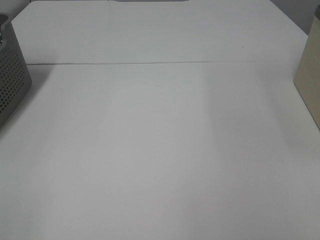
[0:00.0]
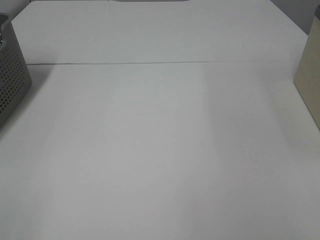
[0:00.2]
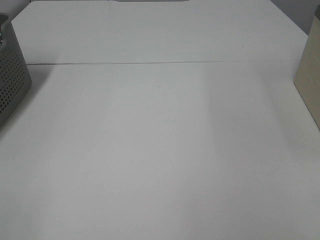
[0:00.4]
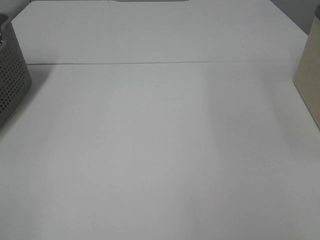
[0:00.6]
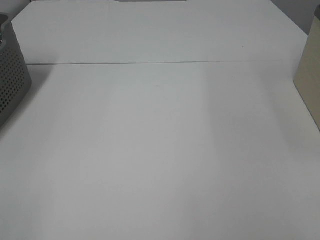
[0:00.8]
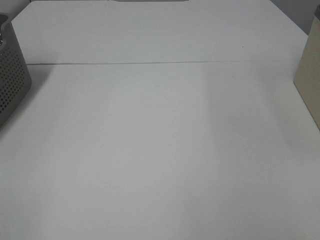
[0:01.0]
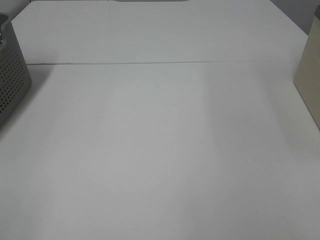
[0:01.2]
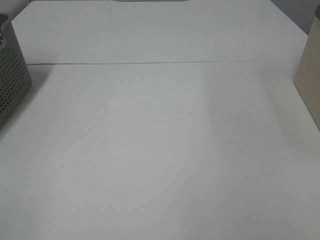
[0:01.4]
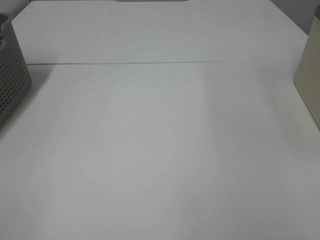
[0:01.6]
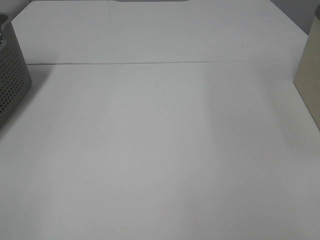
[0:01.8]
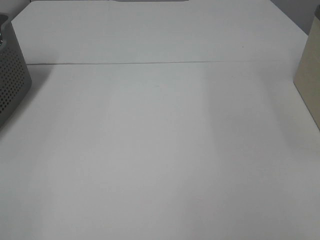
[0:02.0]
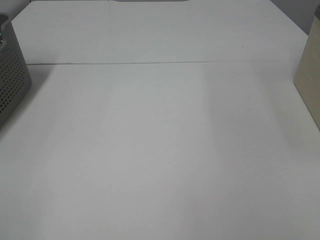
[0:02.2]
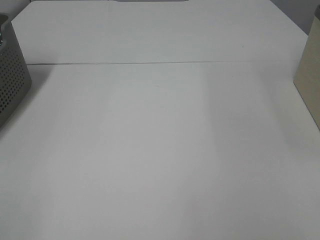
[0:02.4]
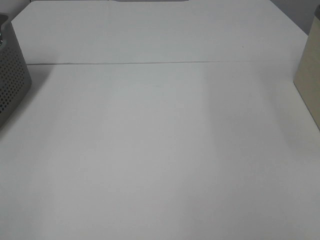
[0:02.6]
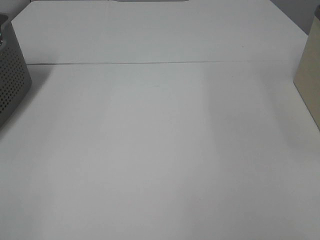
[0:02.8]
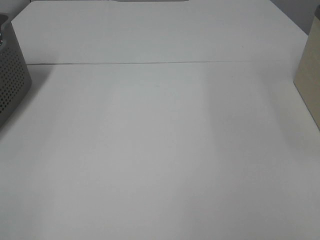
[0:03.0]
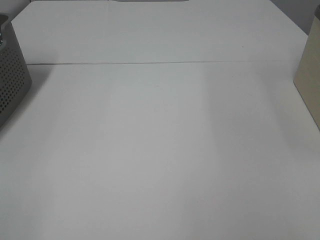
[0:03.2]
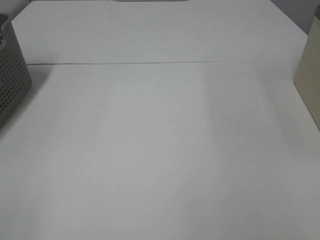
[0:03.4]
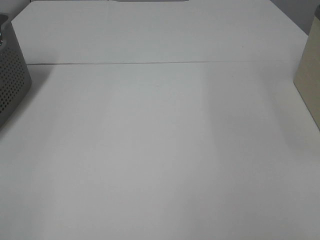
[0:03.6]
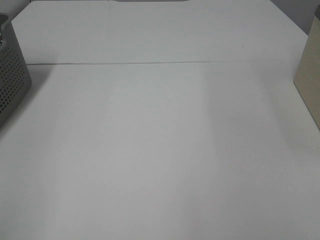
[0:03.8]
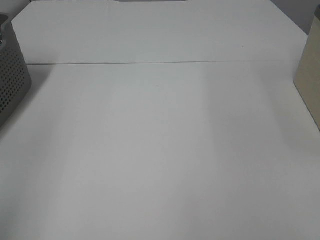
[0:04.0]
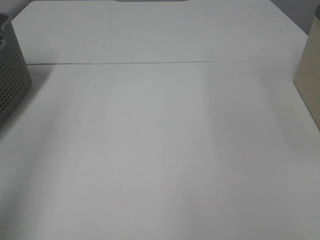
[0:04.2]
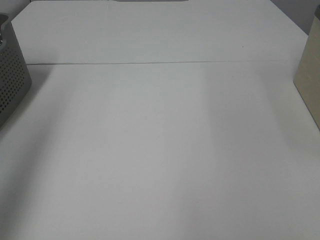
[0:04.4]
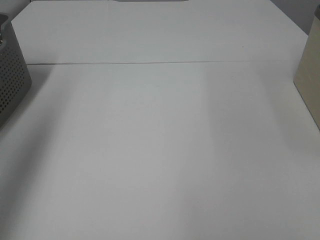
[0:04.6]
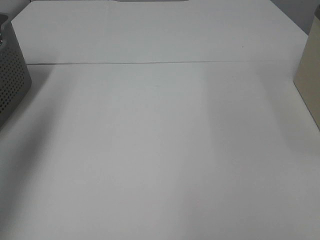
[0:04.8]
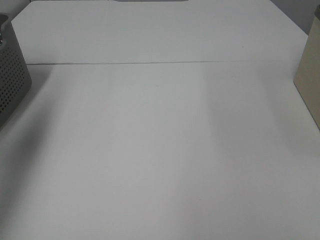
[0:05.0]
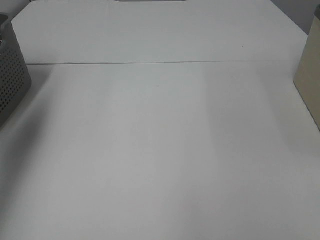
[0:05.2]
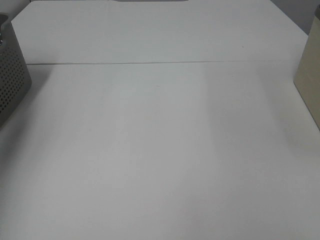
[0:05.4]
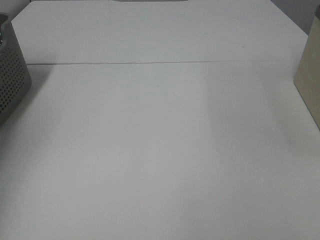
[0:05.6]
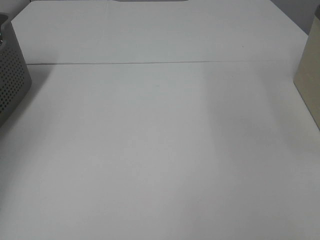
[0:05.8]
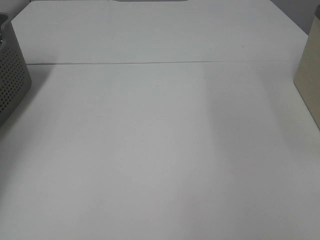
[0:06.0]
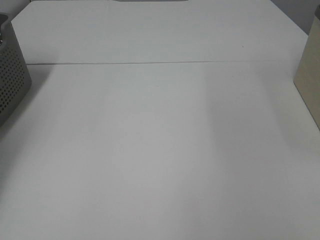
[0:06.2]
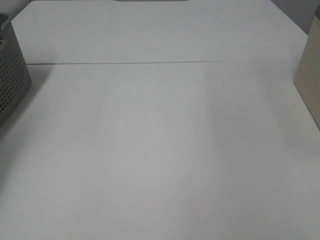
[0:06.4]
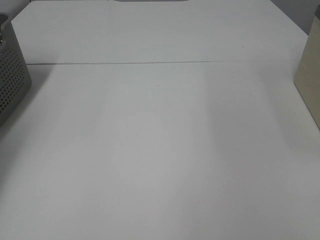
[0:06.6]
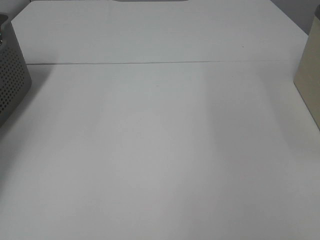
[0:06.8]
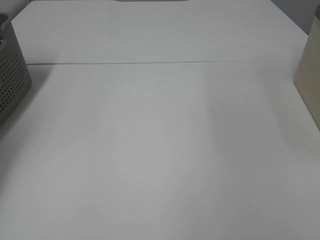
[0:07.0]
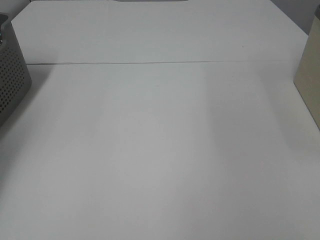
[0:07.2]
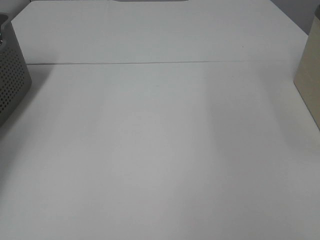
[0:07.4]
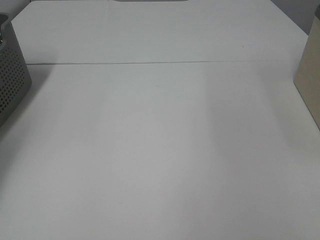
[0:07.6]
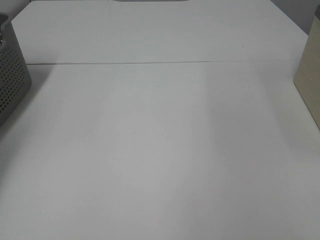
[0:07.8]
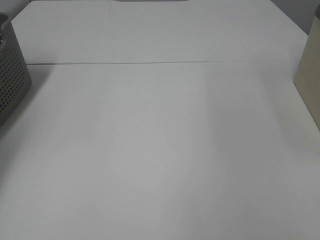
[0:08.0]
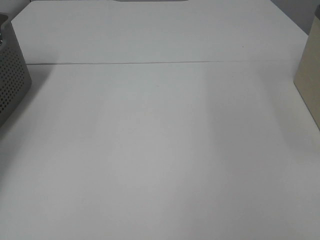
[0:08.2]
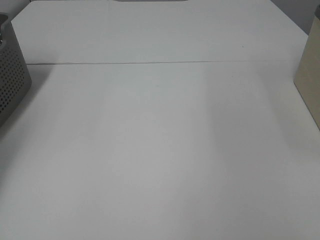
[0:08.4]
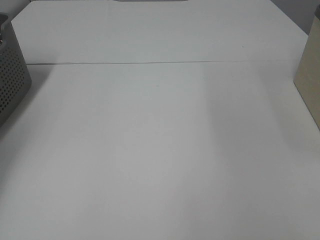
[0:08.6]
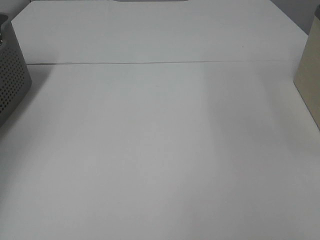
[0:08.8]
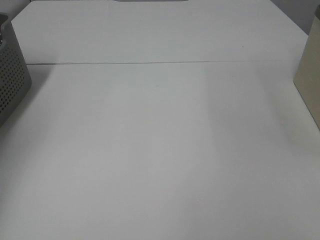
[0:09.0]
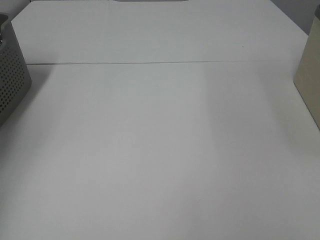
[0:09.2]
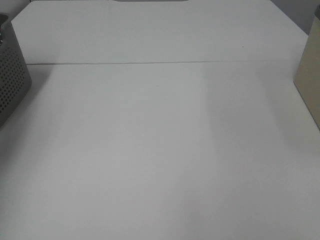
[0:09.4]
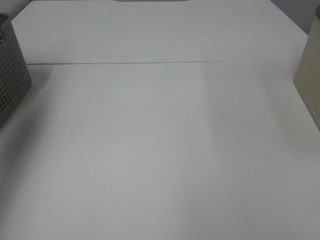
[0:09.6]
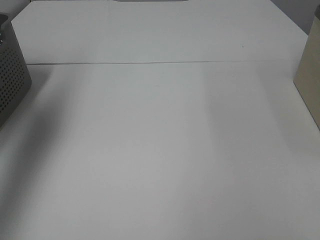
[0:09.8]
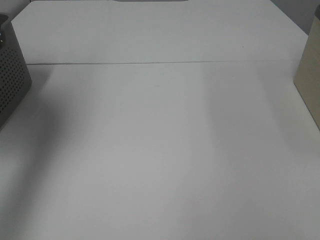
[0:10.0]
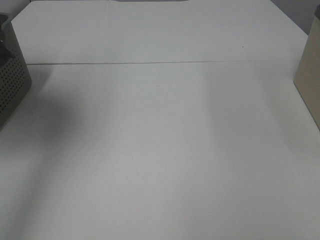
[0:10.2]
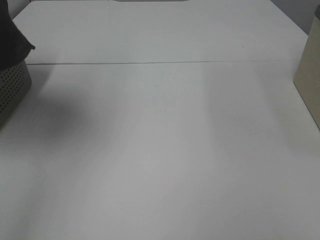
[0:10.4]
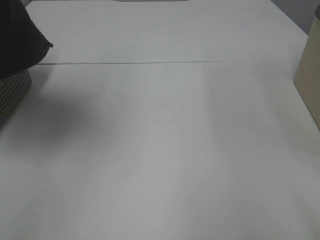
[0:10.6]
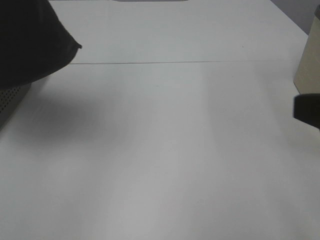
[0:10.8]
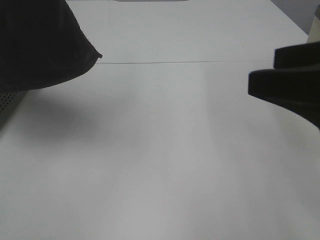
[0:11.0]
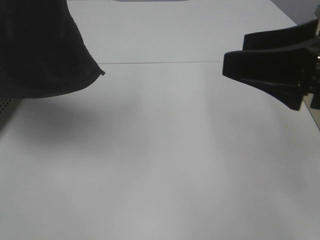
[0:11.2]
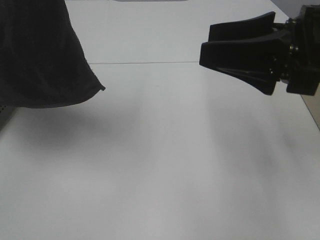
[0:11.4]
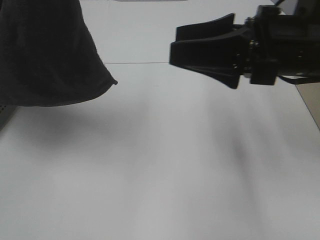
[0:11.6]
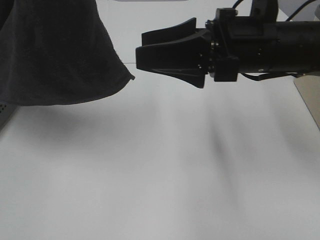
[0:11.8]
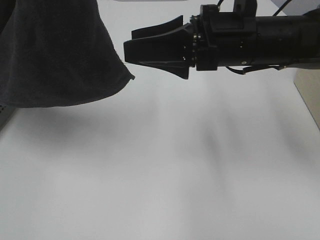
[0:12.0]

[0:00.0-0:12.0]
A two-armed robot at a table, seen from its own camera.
Task of the whole recording: Remove the towel and place it.
0:00.0 to 0:03.0: Both grippers stay about where they are.
0:03.0 to 0:04.4: The left gripper is displaced forward and upward by about 20 cm.
0:04.4 to 0:06.0: The left gripper heads forward, downward and to the left, covering about 30 cm.
0:09.0 to 0:10.4: The left gripper shifts roughly 30 cm to the right, upward and backward.
0:10.4 to 0:12.0: The left gripper is displaced to the right and backward by approximately 10 cm. The right gripper heads forward and to the left, covering roughly 30 cm.

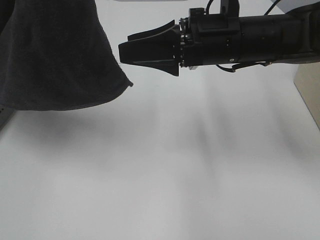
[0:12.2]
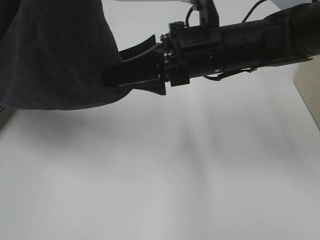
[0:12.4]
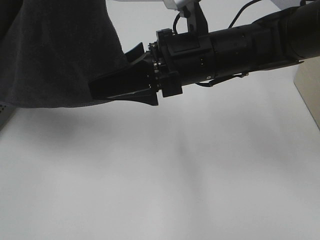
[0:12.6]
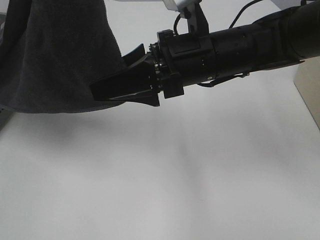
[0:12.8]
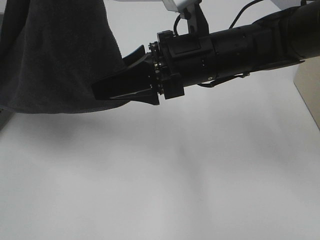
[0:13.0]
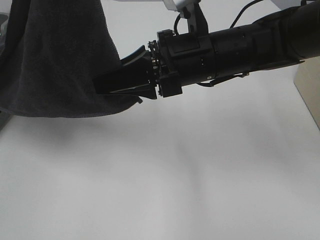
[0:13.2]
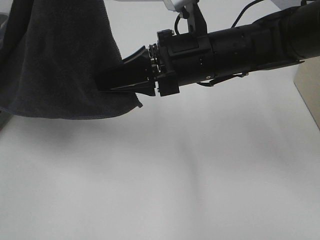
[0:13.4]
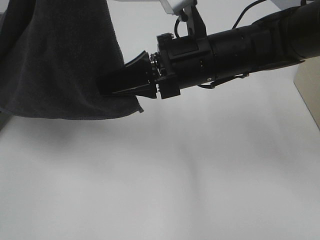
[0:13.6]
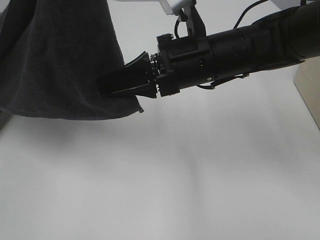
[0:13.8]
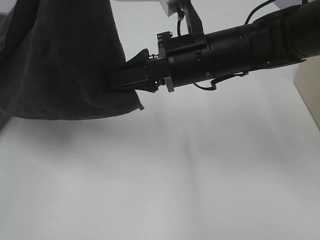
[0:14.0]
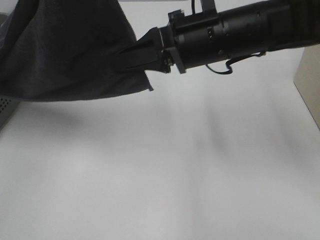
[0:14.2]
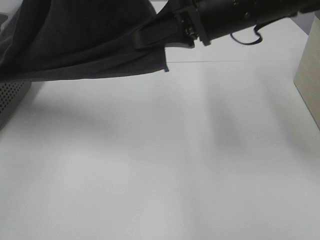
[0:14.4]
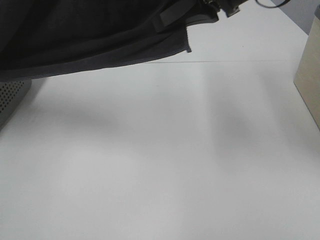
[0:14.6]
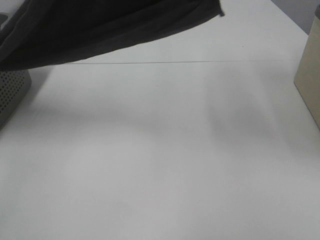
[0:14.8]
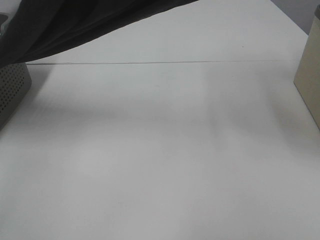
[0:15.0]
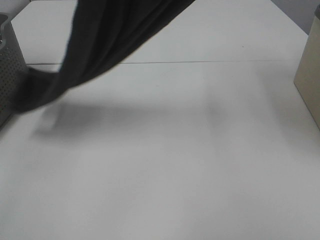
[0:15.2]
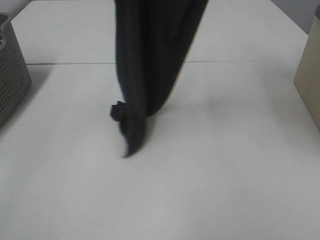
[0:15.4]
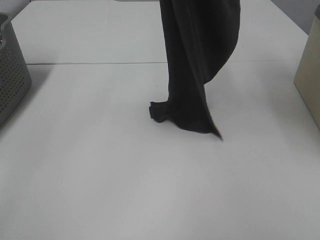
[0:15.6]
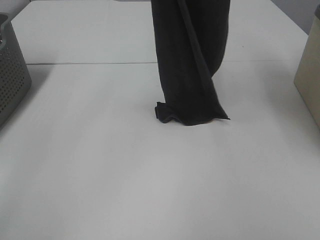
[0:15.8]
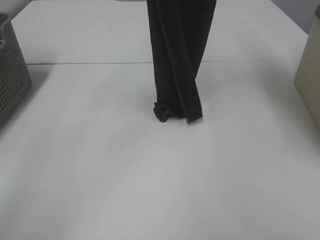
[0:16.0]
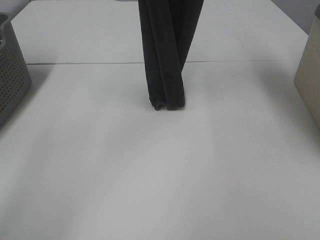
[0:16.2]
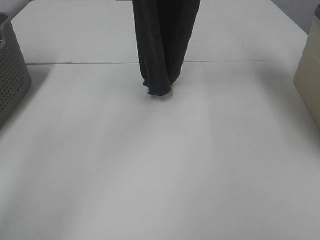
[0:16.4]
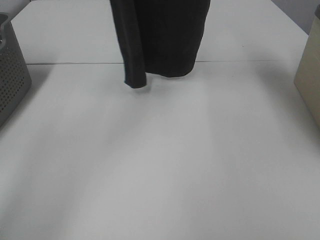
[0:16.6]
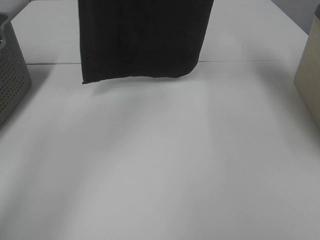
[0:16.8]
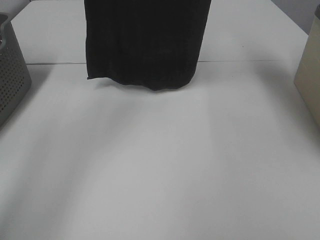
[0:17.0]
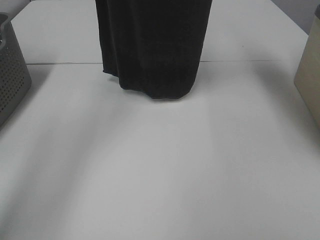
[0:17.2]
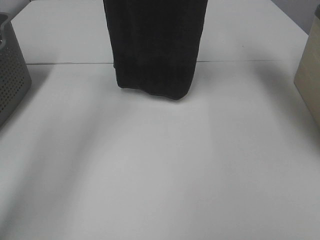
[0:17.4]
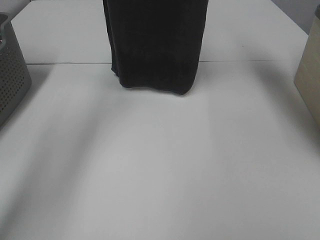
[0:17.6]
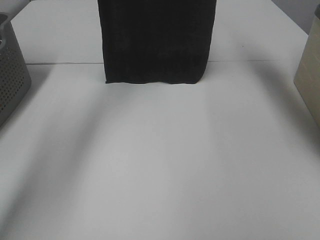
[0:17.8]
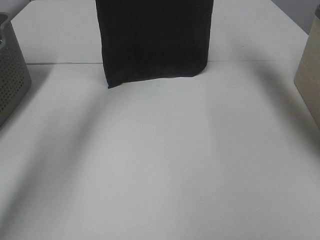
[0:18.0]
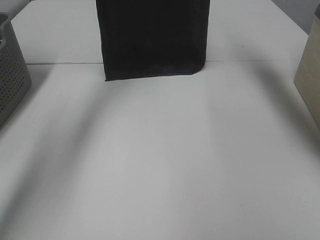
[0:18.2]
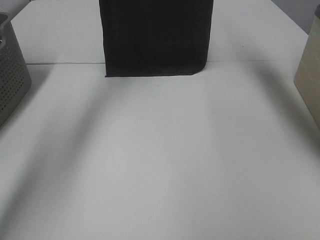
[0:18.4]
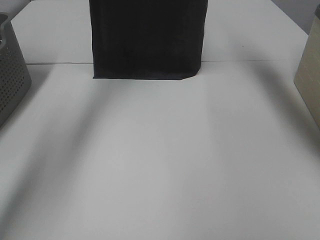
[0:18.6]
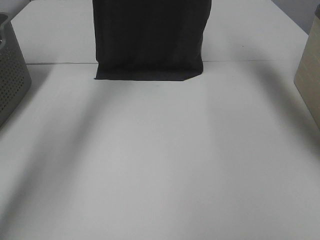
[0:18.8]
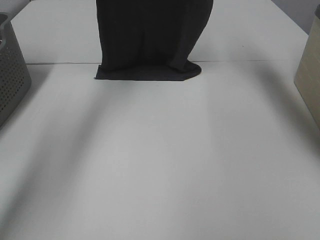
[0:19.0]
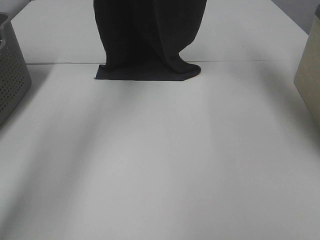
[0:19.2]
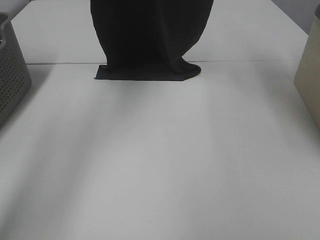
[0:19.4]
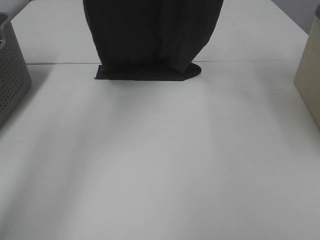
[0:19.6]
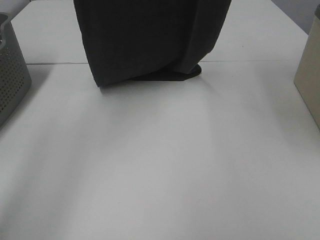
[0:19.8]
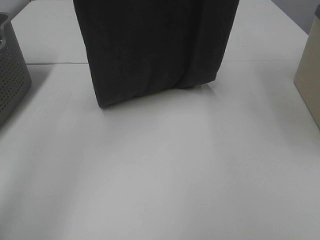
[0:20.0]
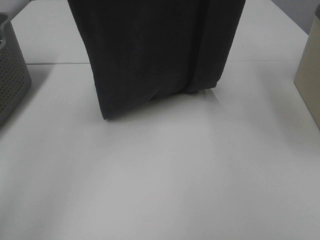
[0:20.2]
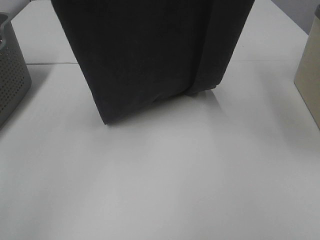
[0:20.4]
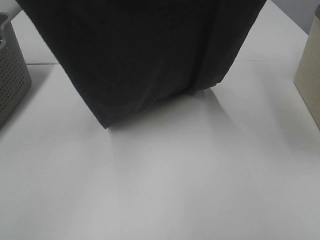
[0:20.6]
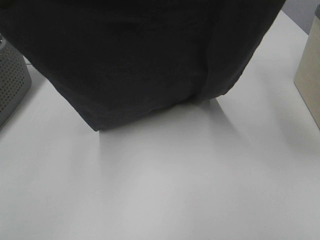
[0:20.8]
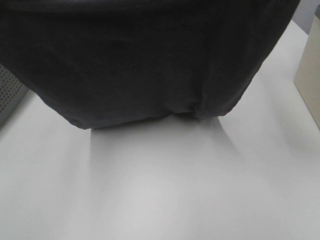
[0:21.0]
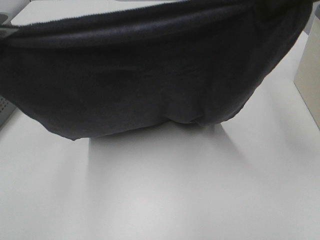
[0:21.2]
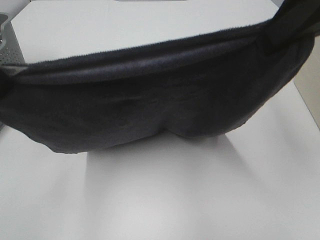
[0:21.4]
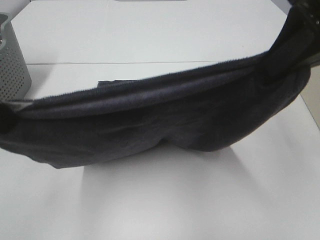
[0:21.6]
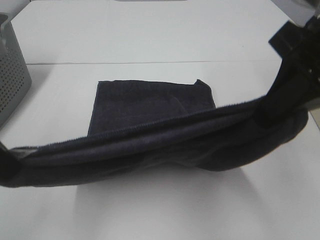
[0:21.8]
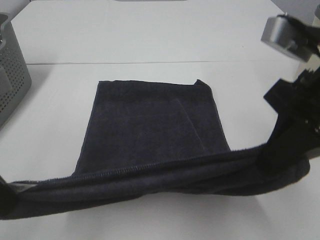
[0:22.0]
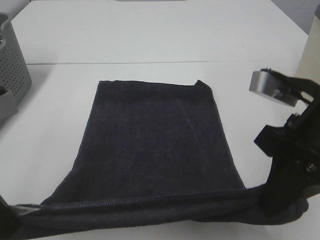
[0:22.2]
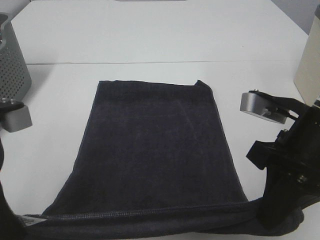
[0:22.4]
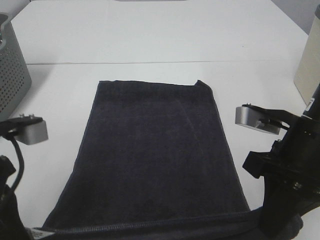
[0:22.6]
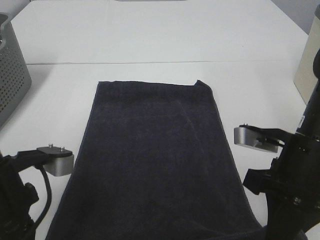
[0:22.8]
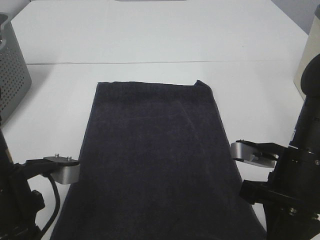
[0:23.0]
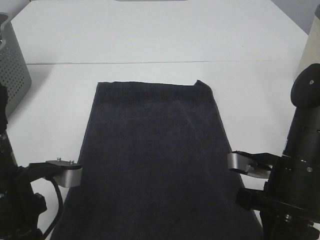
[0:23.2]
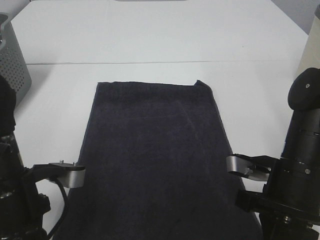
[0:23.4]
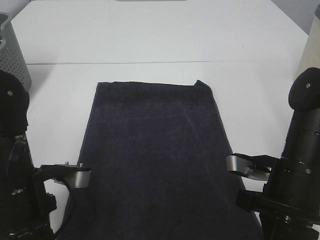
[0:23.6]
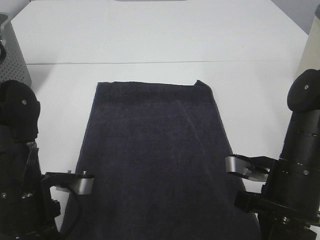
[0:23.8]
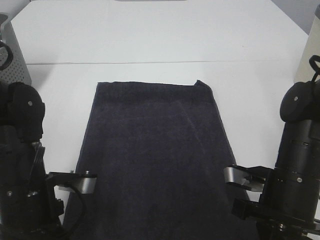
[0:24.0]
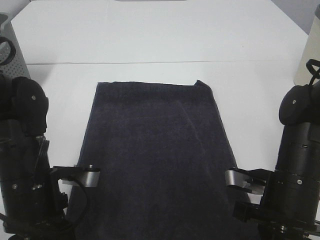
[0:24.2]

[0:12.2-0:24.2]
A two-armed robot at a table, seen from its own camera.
Task of the whole recording: Remove the towel and place it.
Step, 0:14.2 to 0:20.4: Left hand: spread the grey towel flat on the table.
Step, 0:14.2 to 0:20.4: Right hand: spread the grey towel flat on the table.
0:12.2 to 0:13.8: The right gripper closes up.
0:13.8 to 0:15.2: The right gripper shifts roughly 25 cm upward. The left gripper shifts some 5 cm forward.
0:15.2 to 0:16.6: The right gripper goes about 5 cm forward; the left gripper goes approximately 15 cm forward and to the left.
0:16.6 to 0:18.2: The right gripper shifts some 5 cm forward. Meanwhile the left gripper moves forward and downward, approximately 10 cm.
0:18.2 to 0:19.8: The left gripper shifts some 15 cm backward and upward. Meanwhile the right gripper travels backward by some 15 cm.
0:19.8 to 0:21.2: Both grippers move backward and downward, some 20 cm.
0:21.2 to 0:22.6: The grippers both shift downward by roughly 20 cm.
0:22.6 to 0:24.2: The grippers both shift downward by about 10 cm.
